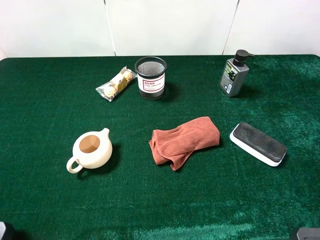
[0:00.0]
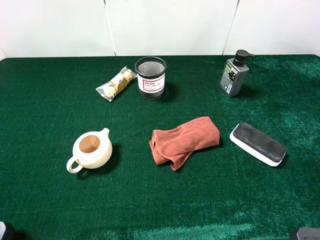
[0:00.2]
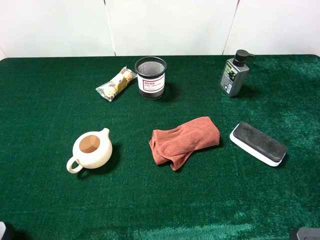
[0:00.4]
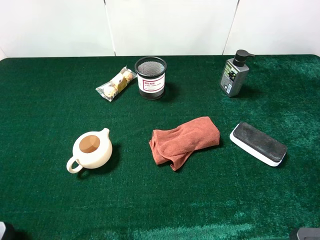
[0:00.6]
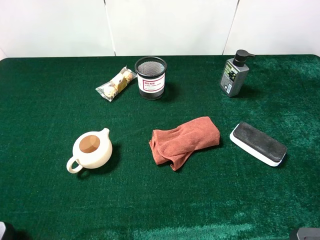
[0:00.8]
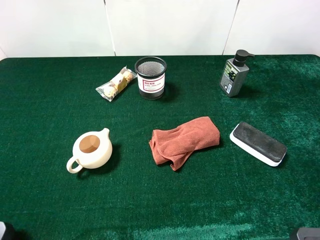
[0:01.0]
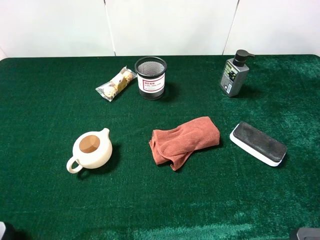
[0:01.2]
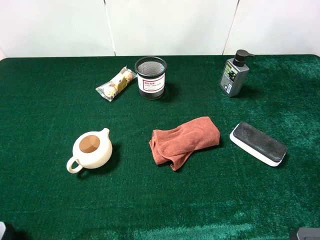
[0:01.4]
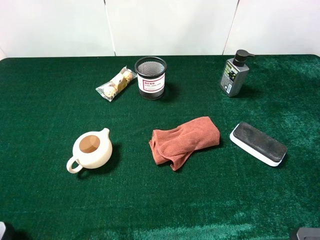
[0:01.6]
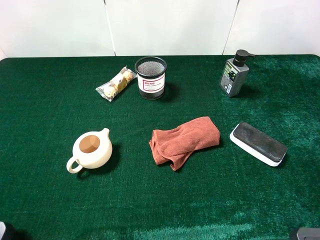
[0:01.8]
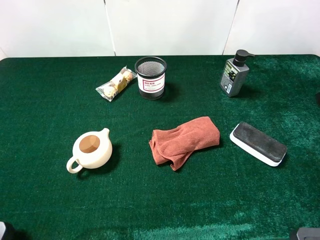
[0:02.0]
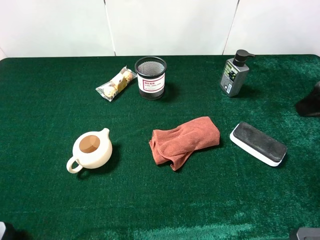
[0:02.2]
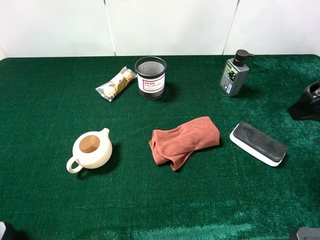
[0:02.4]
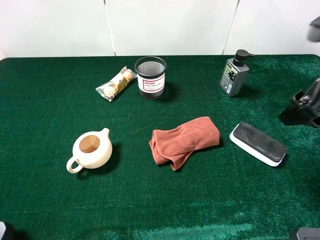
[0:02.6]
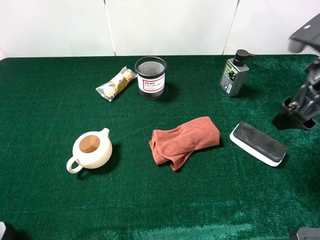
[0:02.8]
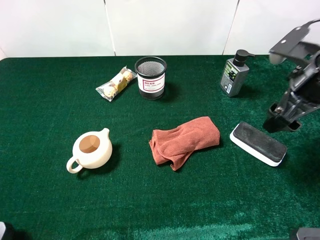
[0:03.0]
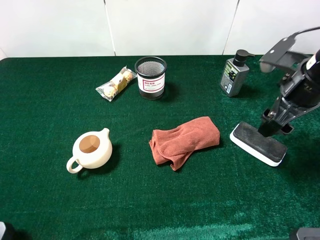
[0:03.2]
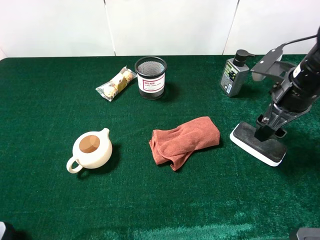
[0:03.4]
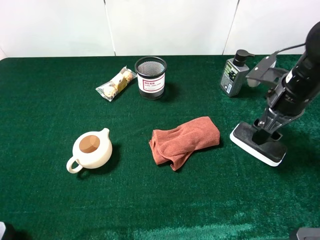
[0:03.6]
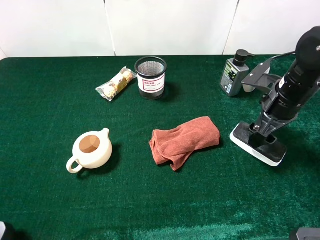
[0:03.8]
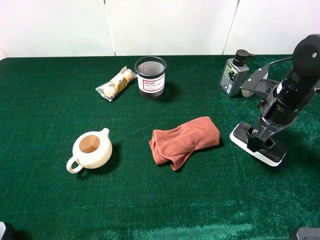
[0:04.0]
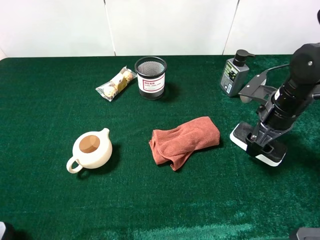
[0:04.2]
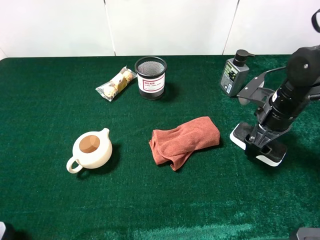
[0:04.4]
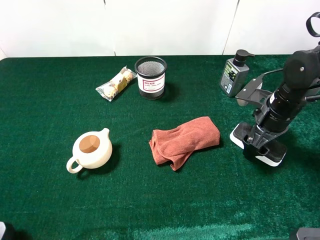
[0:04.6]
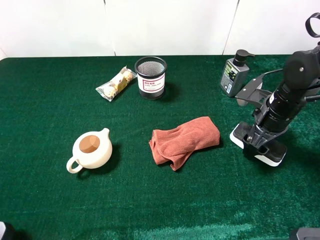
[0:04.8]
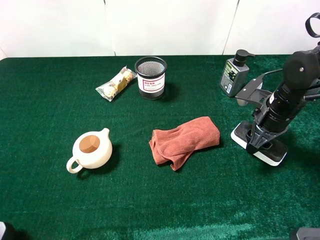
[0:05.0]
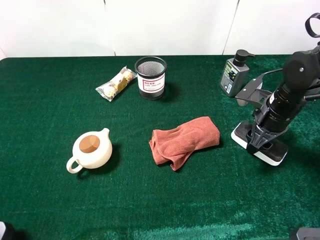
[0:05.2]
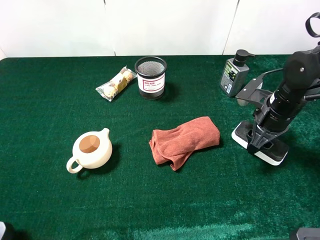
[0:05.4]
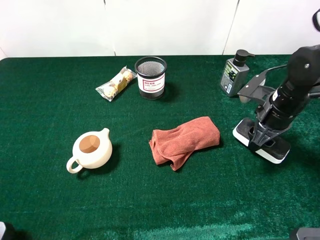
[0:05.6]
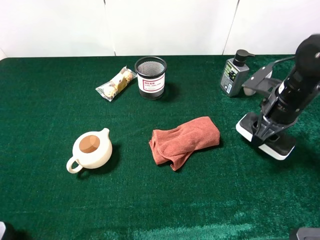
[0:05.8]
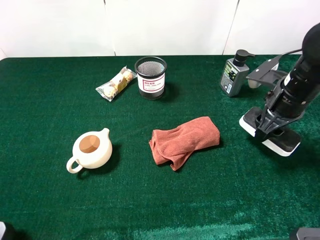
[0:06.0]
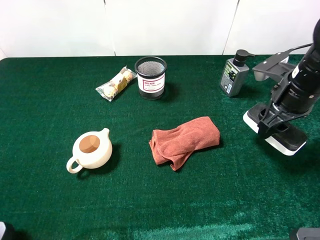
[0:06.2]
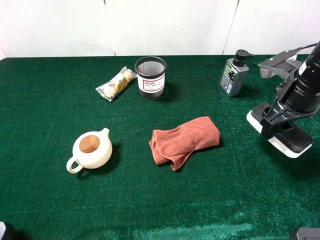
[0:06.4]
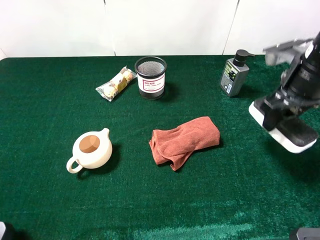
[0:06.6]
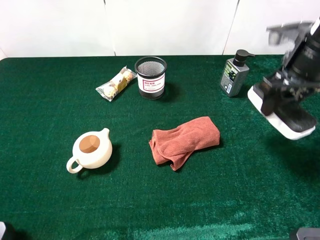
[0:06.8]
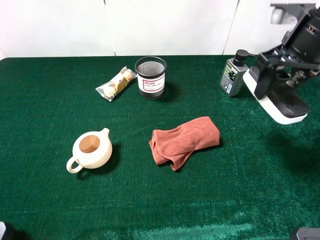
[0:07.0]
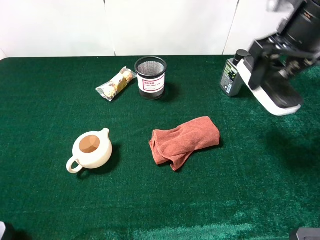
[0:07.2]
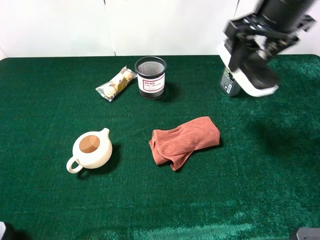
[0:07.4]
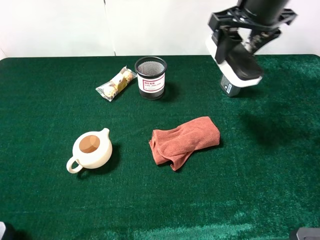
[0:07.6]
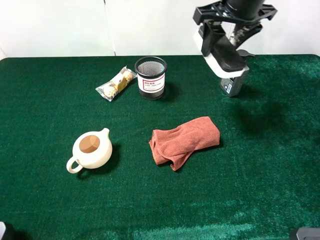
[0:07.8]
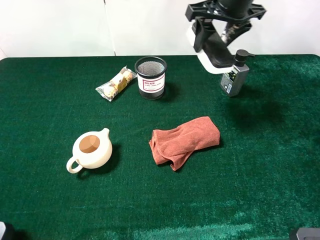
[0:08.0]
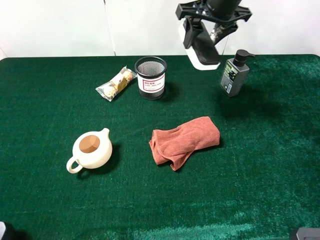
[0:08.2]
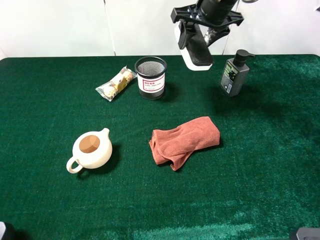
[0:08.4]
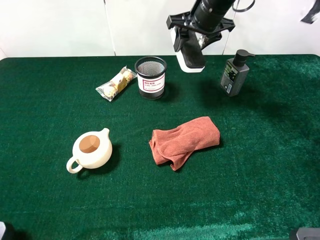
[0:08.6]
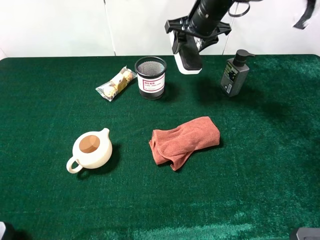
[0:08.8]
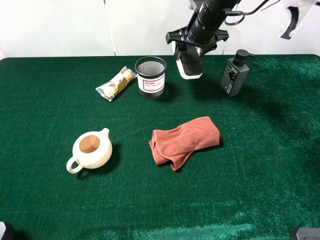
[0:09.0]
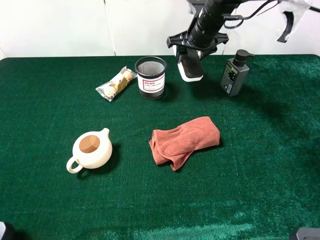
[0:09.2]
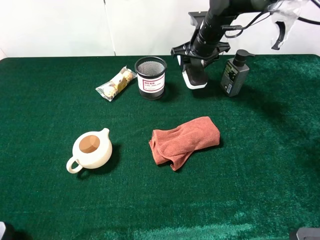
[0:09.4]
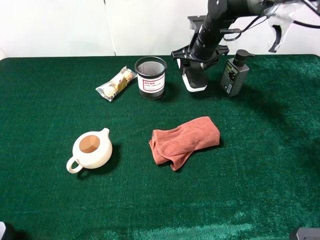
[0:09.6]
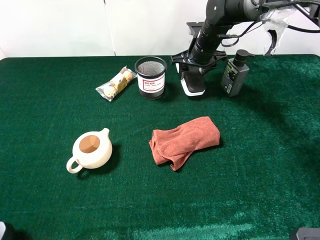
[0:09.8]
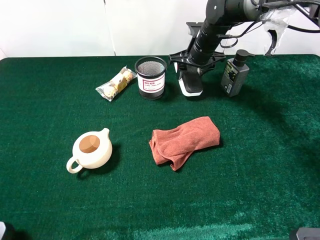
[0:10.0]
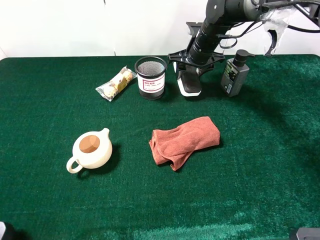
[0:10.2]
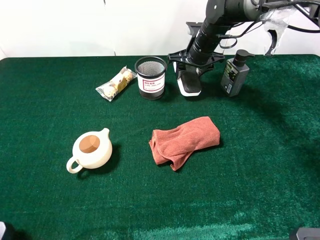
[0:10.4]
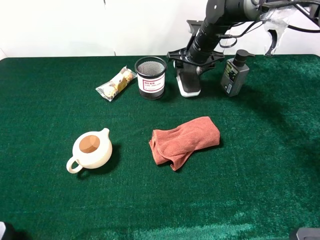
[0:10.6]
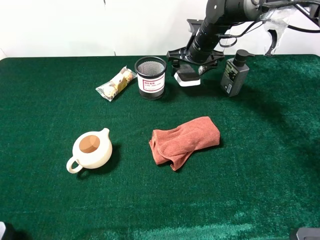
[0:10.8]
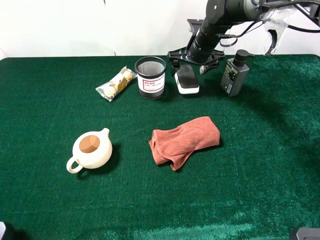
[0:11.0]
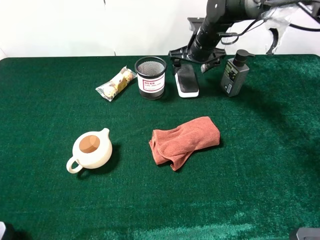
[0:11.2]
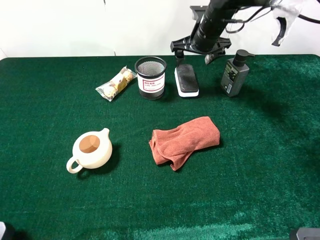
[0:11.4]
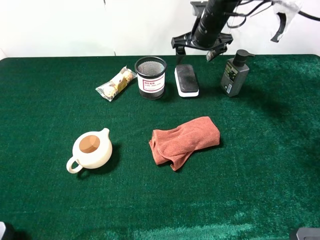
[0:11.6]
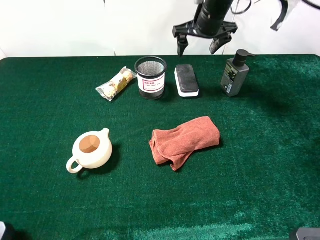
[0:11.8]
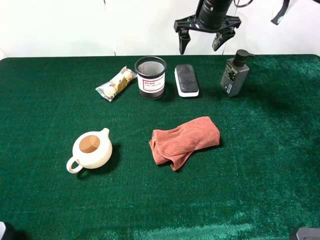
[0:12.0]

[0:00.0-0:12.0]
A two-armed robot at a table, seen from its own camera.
Task of the whole recording: the gripper move the object.
Step, 0:00.0 to 0:05.2: Grasp the white blackboard earser with the right gripper mangosteen.
Step, 0:05.4 to 0:11.6: Place the white blackboard earser on the table with the right gripper.
0:01.6 to 0:03.0: The right gripper goes approximately 20 cm forward and downward.
0:03.0 to 0:04.4: The right gripper shifts some 10 cm downward.
0:04.4 to 0:06.0: The right gripper closes up.
0:06.0 to 0:07.6: The right gripper travels upward, to the left and forward by roughly 20 cm.
0:07.6 to 0:09.0: The right gripper is displaced downward, forward and to the left by some 15 cm.
0:09.0 to 0:10.4: The right gripper shifts roughly 5 cm downward.
0:10.4 to 0:12.0: The right gripper shifts some 10 cm upward, and opens.

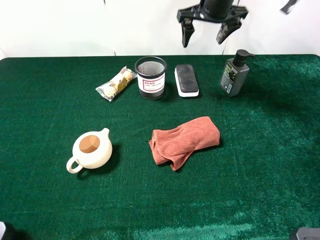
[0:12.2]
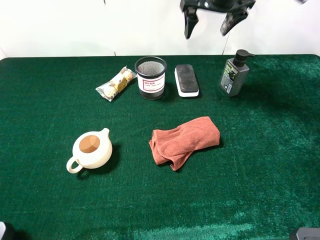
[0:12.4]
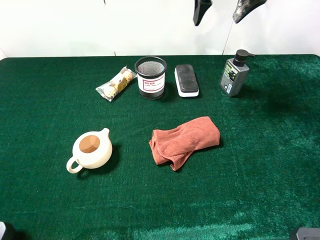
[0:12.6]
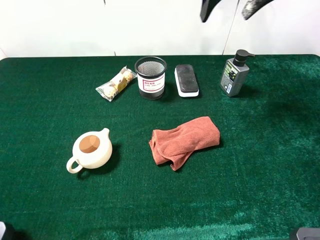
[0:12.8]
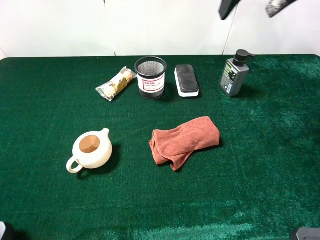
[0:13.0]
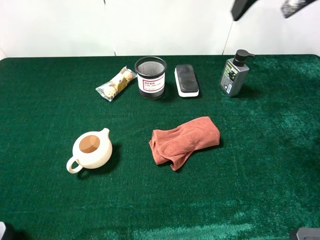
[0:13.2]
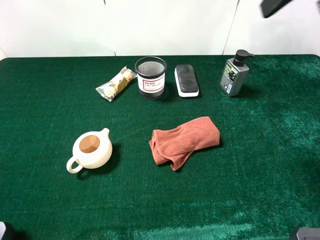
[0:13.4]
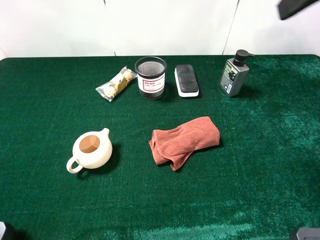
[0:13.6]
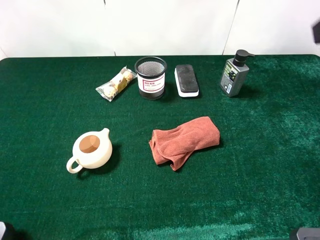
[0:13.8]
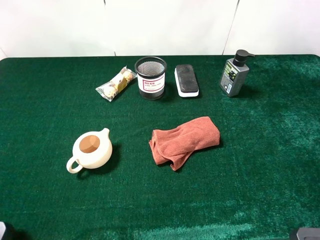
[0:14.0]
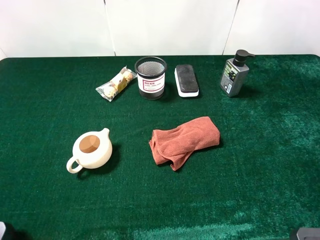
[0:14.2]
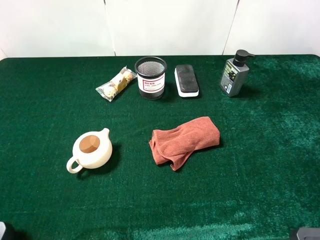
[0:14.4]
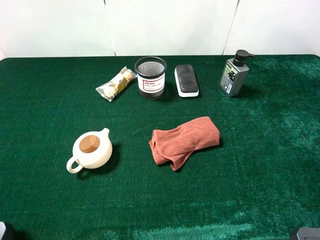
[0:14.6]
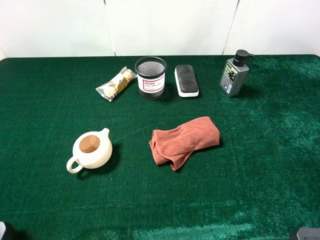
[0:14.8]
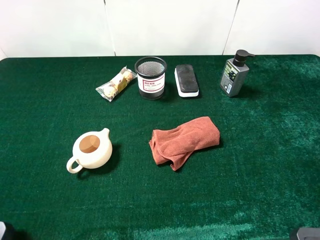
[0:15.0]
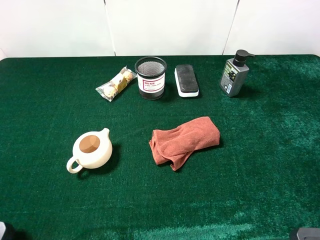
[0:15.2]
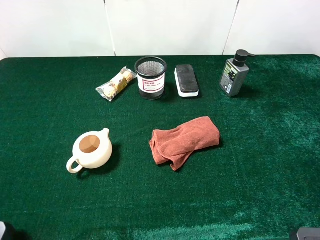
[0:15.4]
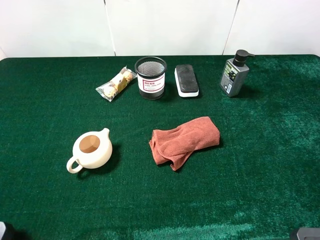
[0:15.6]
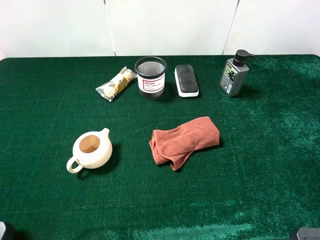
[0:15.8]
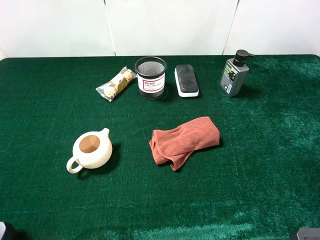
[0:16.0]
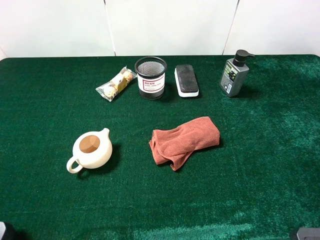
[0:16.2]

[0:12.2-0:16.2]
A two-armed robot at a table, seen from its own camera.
Task of the whole recording: the gripper move the object.
0:12.2 to 0:13.6: The right gripper travels backward, upward and to the right by about 30 cm.
0:13.6 to 0:14.8: The right gripper heads backward, downward and to the right, covering some 20 cm.
0:14.8 to 0:16.2: The two grippers keep their place.
